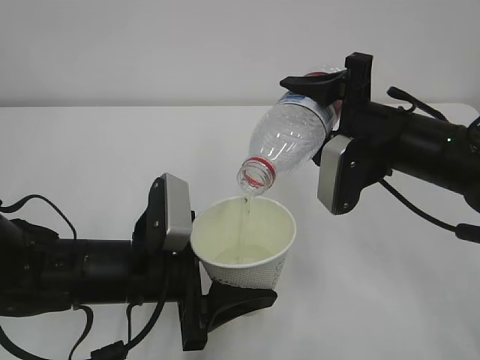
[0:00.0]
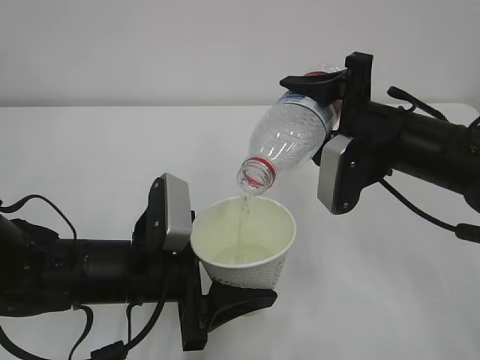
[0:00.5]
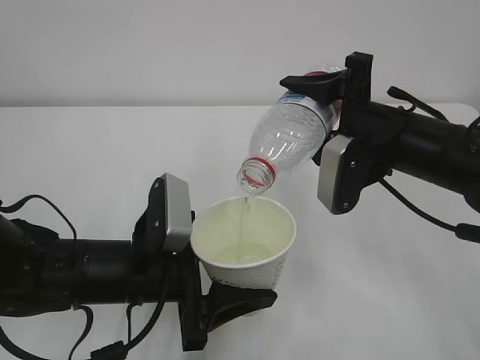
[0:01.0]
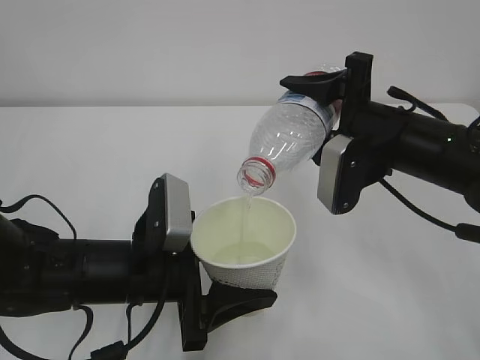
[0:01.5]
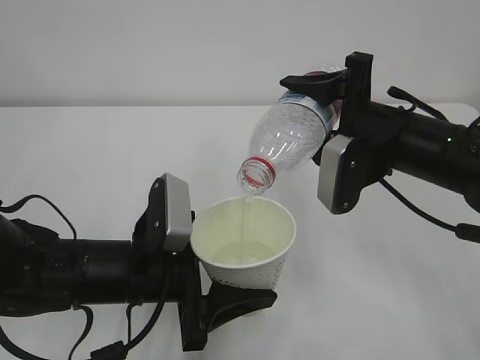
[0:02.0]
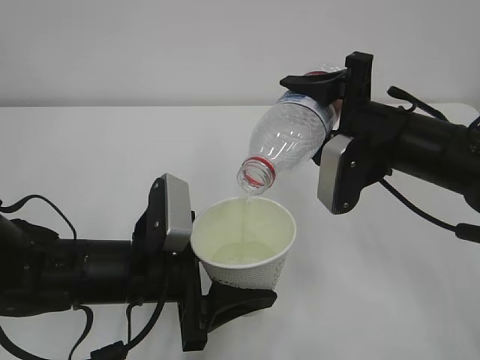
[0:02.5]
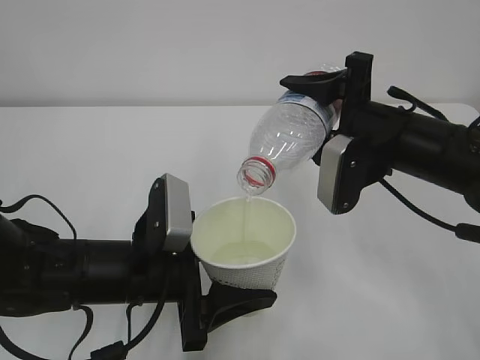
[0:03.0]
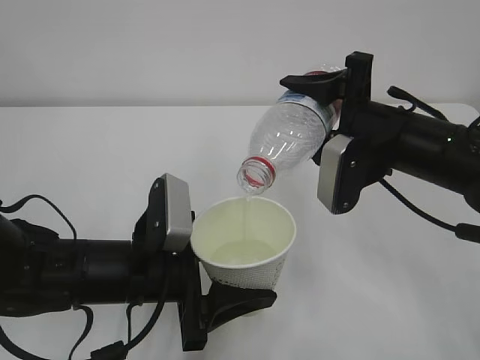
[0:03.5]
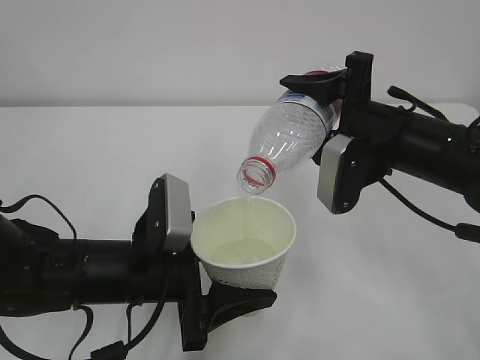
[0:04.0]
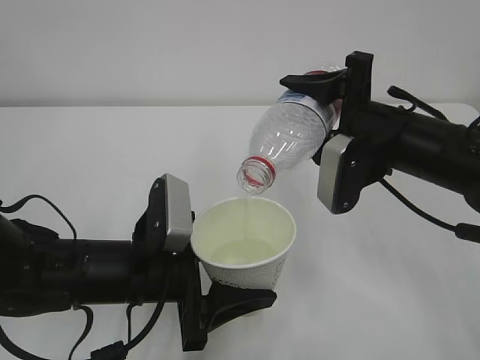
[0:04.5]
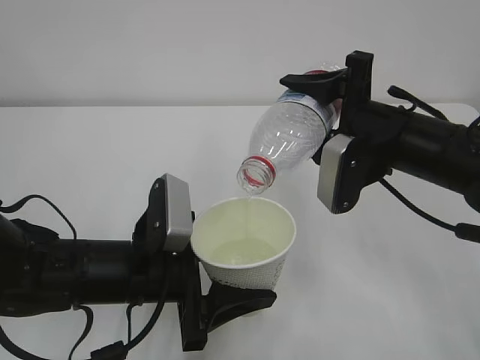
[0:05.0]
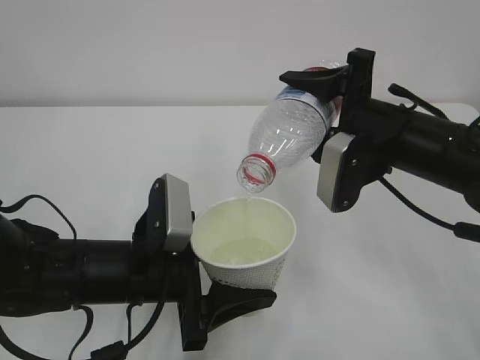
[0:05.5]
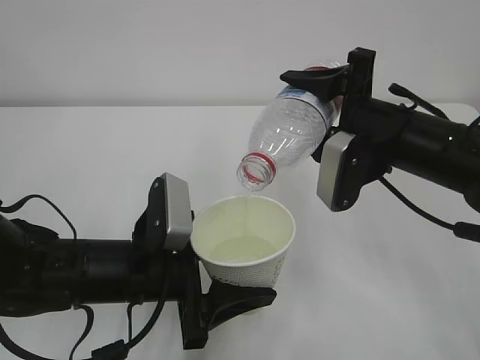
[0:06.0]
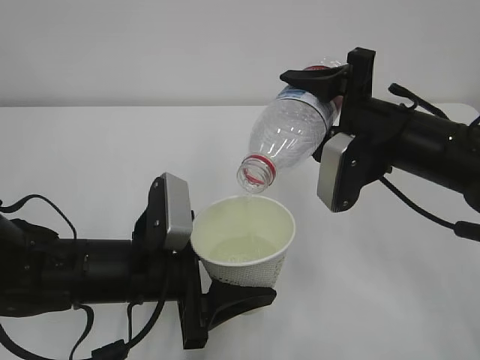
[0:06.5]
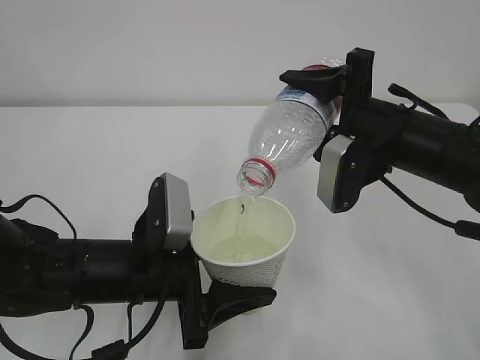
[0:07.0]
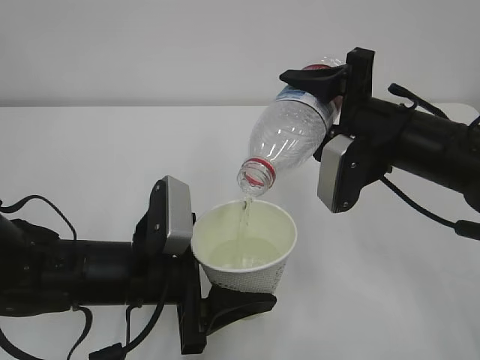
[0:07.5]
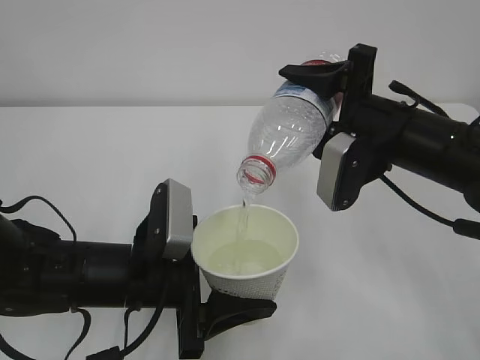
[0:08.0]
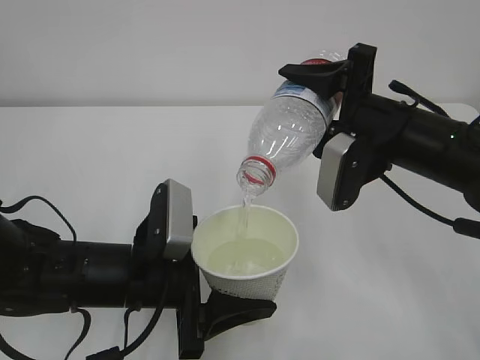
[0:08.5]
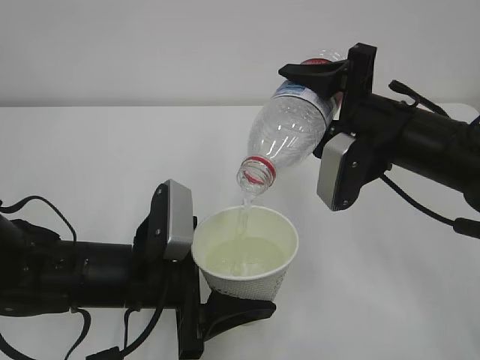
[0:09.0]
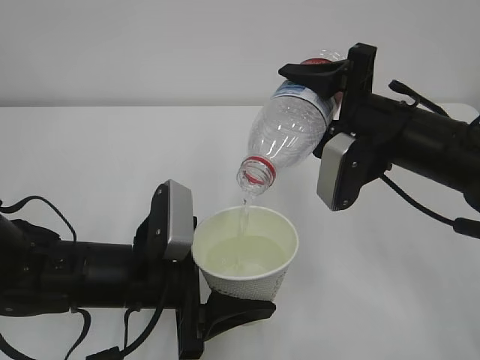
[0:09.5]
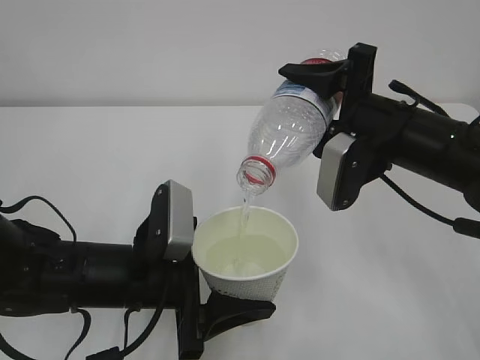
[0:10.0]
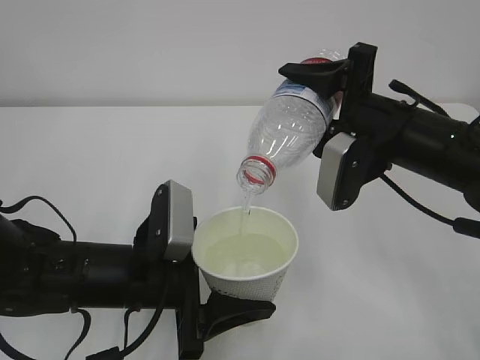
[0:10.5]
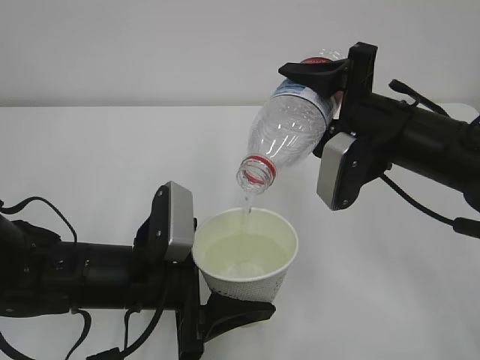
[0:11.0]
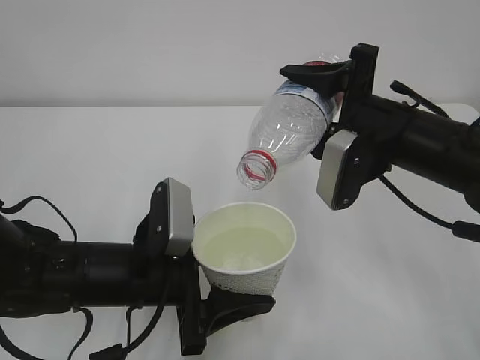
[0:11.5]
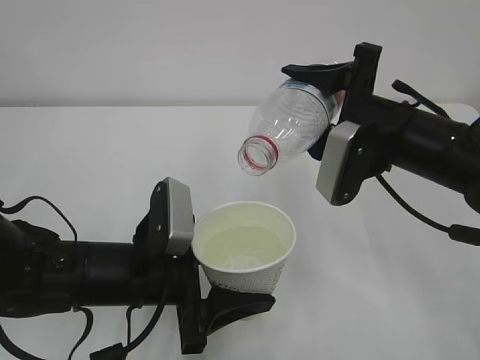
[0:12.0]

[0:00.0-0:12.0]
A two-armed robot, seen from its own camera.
0:00.0 to 0:08.0: The two grippers keep their place.
0:08.0 to 0:10.0: Both grippers stay put.
0:10.0 to 0:12.0: The grippers move only a little.

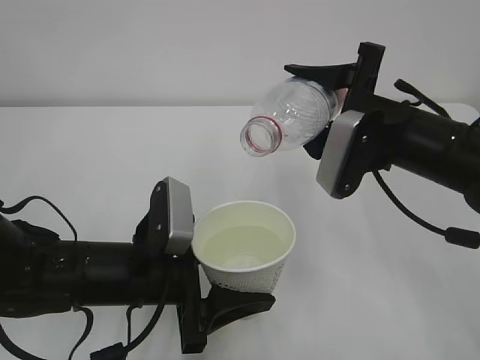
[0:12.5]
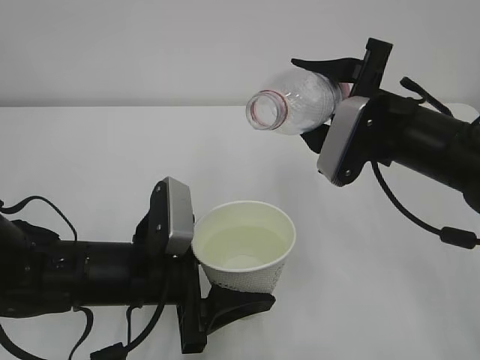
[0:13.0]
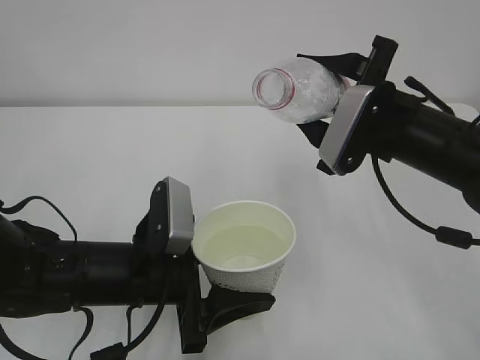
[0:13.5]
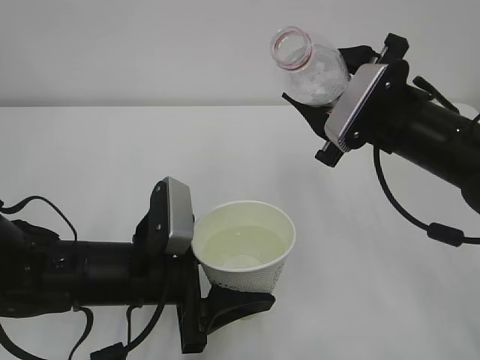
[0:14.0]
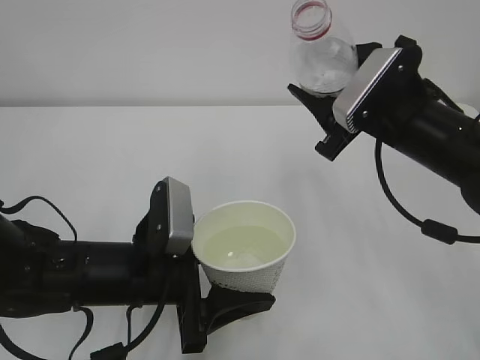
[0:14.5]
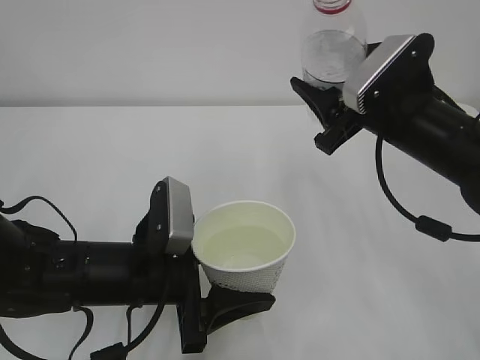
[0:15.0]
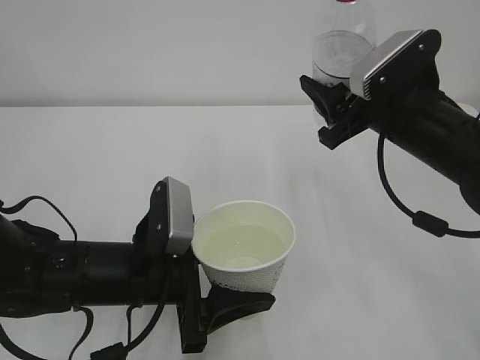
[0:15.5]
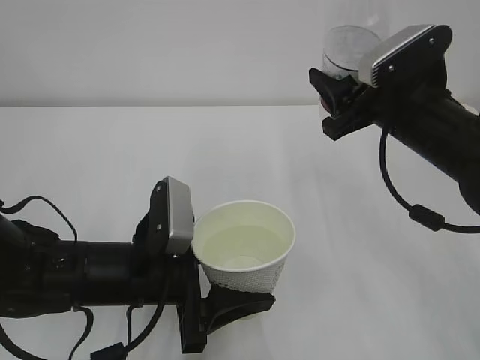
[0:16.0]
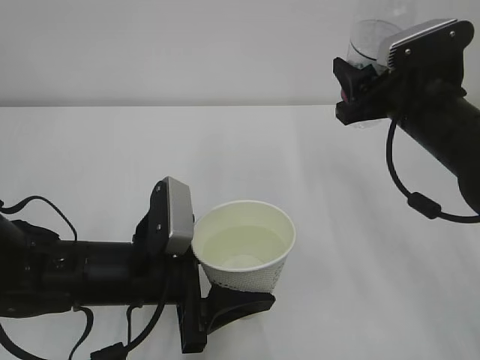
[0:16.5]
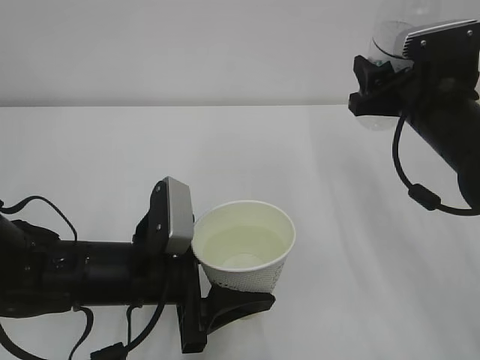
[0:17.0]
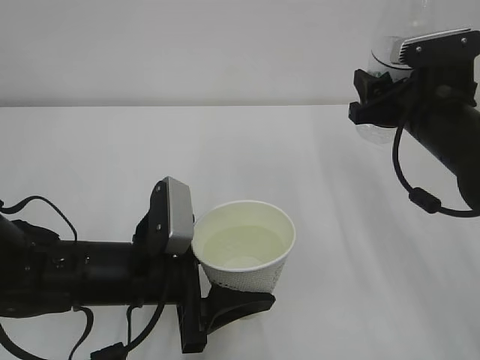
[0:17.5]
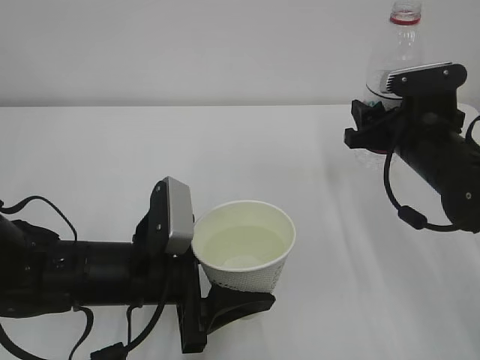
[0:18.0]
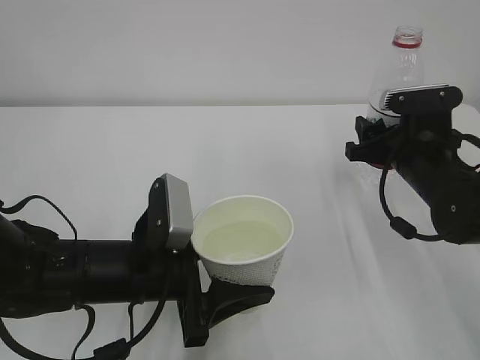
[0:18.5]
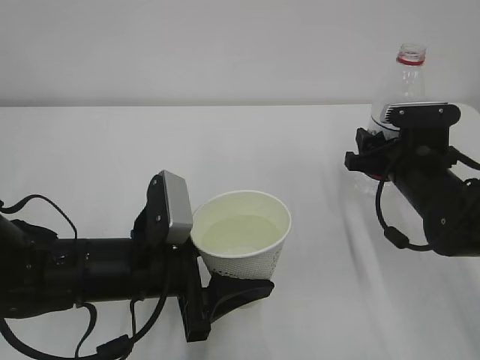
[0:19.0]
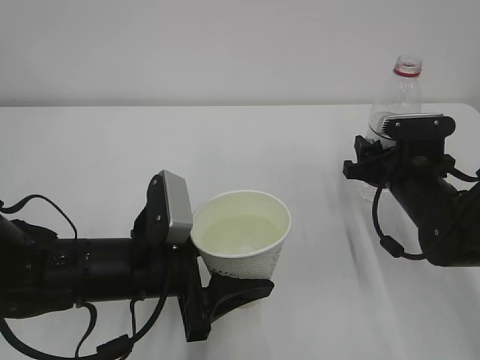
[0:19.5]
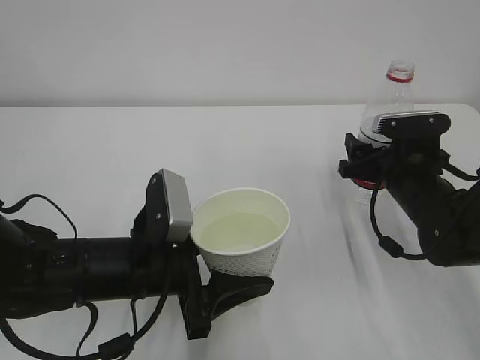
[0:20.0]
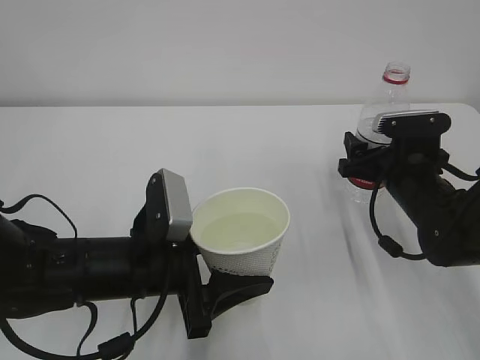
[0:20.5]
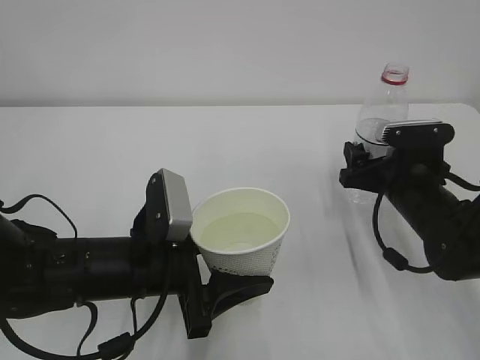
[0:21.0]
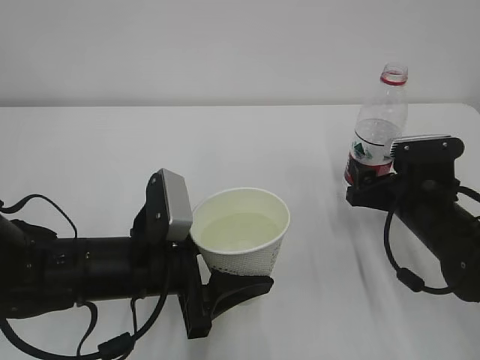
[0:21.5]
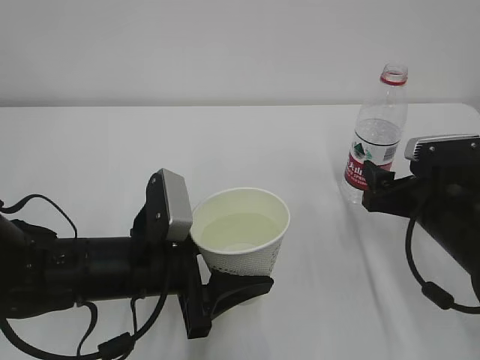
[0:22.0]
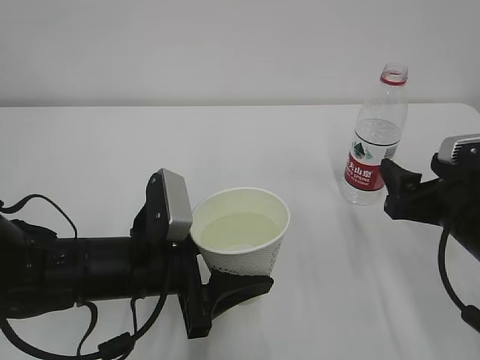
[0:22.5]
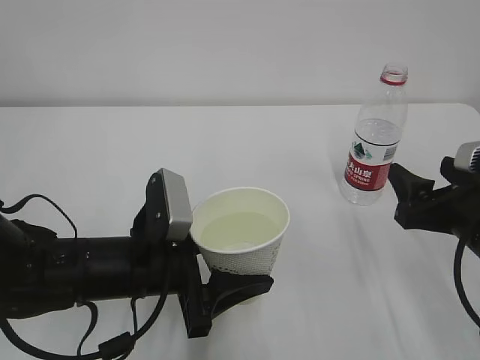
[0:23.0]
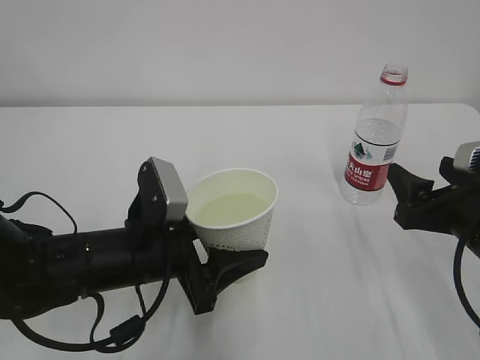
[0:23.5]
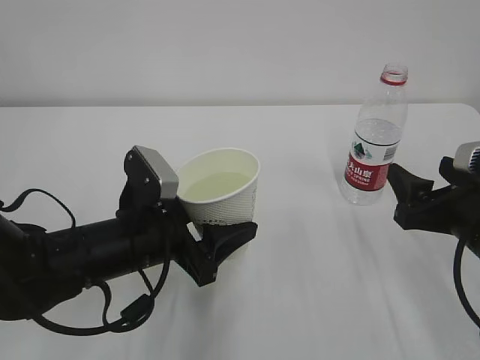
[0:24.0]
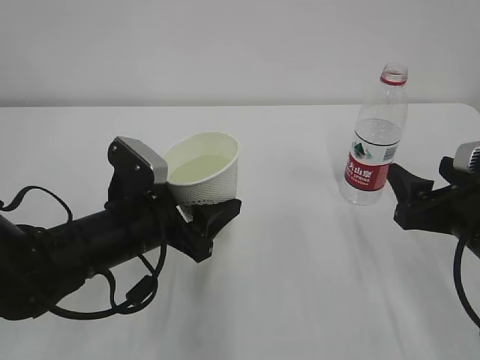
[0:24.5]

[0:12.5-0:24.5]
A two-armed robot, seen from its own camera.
0:16.5 to 0:18.5: The right gripper heads downward, covering about 10 cm.
0:18.5 to 0:20.5: The right gripper opens up.
0:20.5 to 0:22.5: The right gripper travels backward by roughly 10 cm.

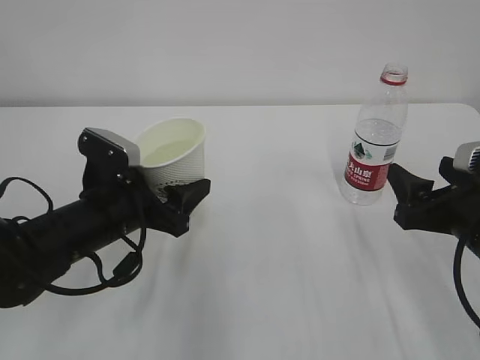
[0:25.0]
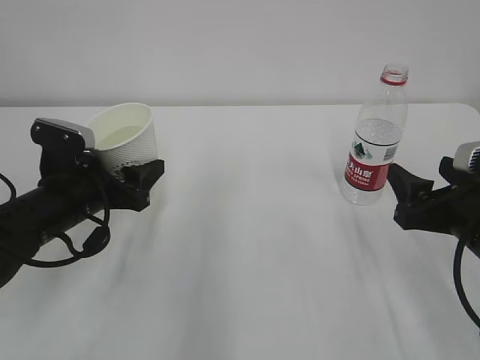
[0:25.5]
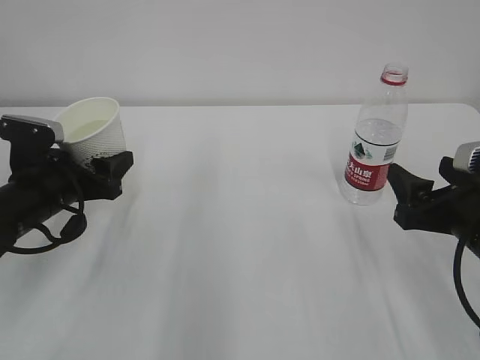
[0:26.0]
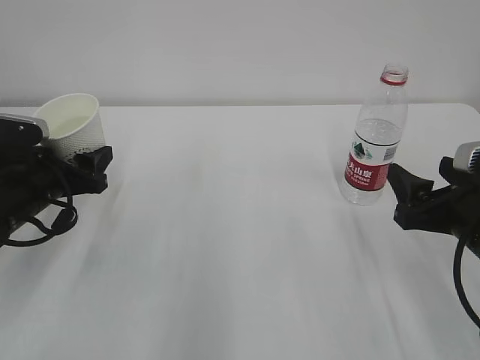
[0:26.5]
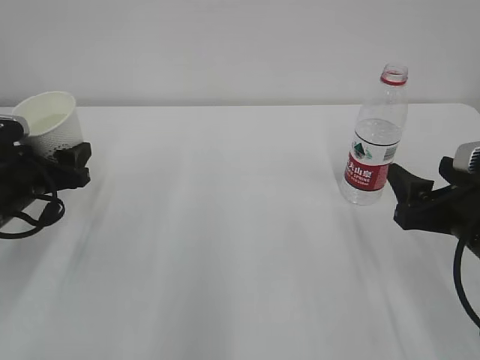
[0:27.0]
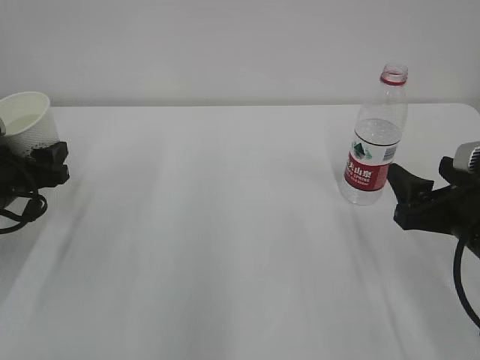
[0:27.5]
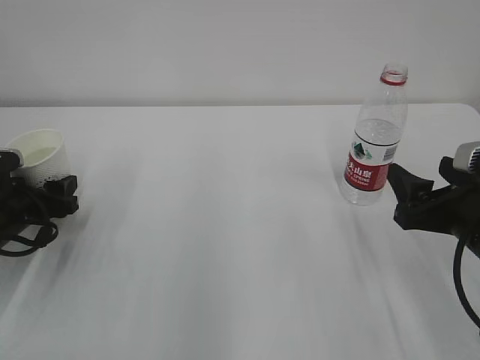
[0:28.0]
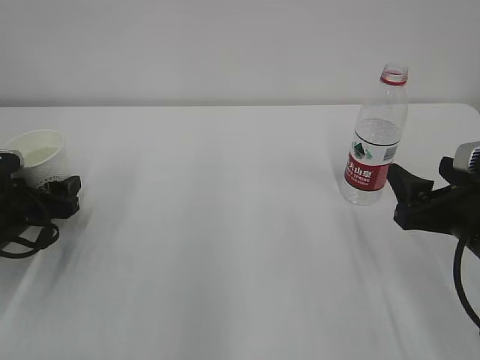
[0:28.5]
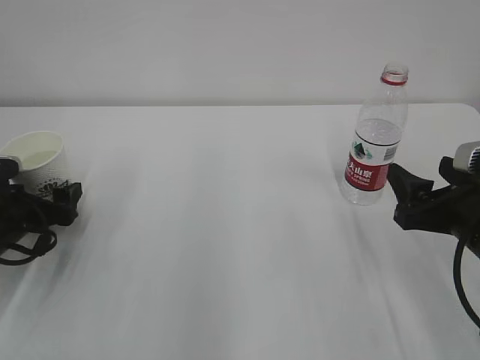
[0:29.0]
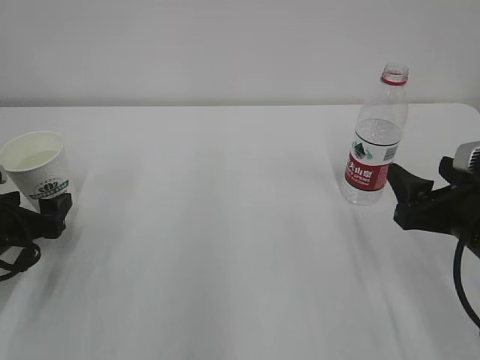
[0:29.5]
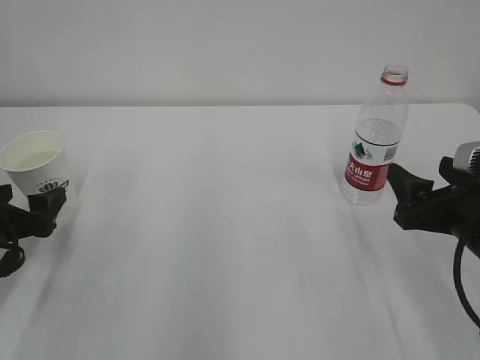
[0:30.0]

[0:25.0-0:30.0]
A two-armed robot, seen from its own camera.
0:25.0 to 0:27.5: The left gripper heads to the left, covering about 15 cm.
0:27.5 to 0:30.0: The left gripper heads backward, covering roughly 5 cm, and opens its fingers.
